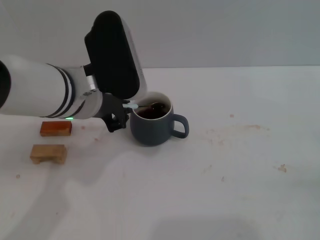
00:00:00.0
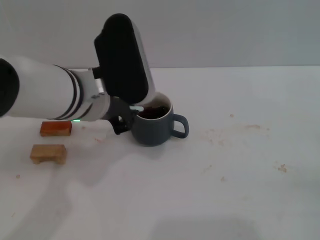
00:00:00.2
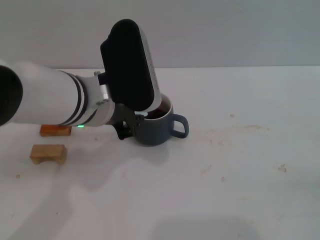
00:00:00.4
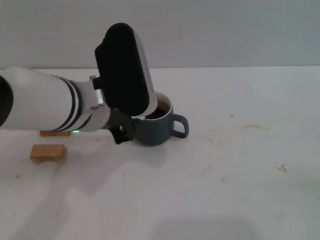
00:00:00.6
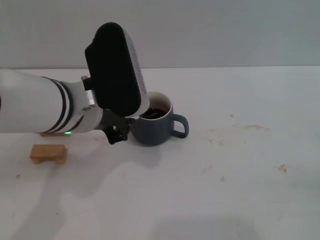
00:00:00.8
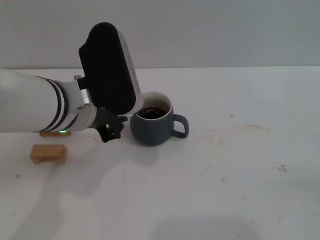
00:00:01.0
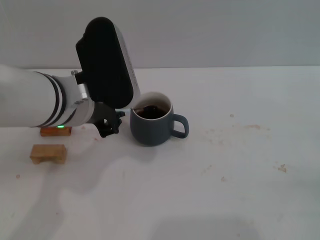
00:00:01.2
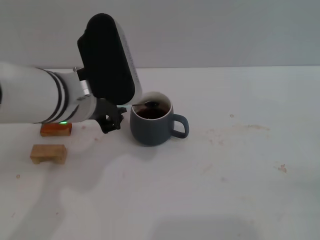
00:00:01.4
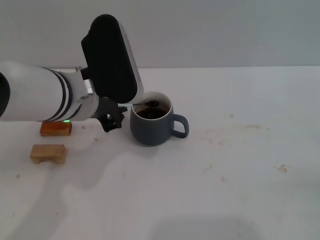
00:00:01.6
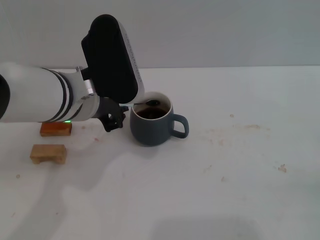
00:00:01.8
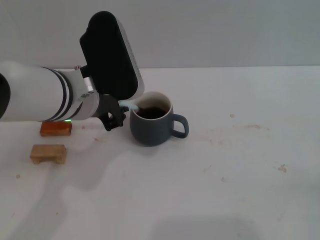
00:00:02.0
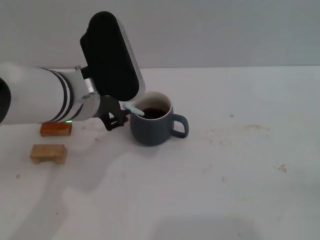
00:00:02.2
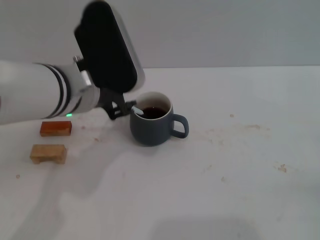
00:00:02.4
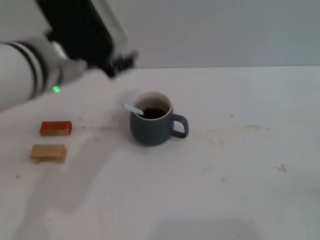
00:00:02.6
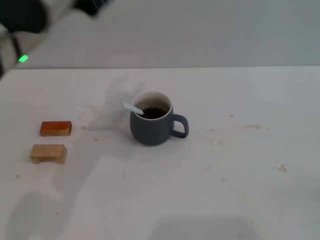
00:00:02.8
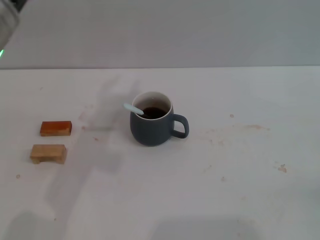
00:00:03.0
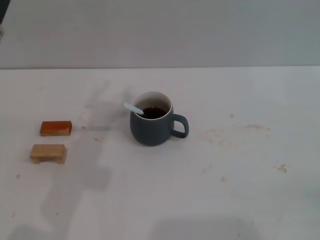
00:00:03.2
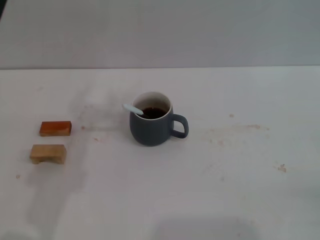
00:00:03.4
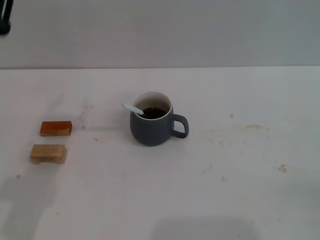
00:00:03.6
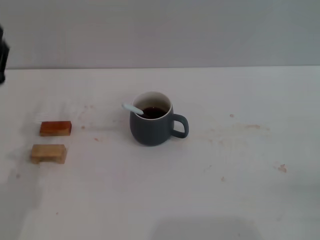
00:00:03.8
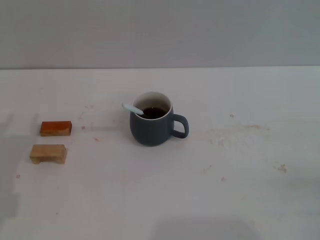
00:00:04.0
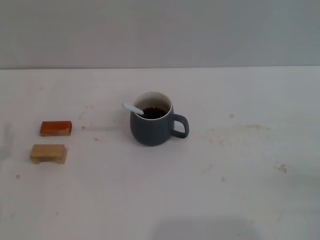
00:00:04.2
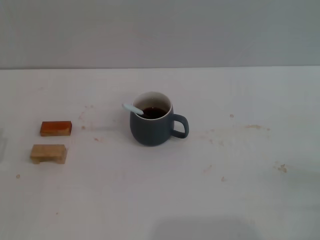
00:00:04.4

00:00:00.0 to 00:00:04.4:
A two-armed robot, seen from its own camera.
Task of the whole recording: Move the grey cup to the center, lift the blue spoon, stir it three times in the cup, and put the spoon into the cup.
Step, 00:00:00.0 to 00:00:02.4: Stir the coffee in the cup with the left gripper.
00:00:00.0 to 00:00:01.4: The grippers move only a little.
00:00:01.4 to 00:00:03.0: The left gripper is displaced upward and backward by roughly 10 cm, and opens up.
